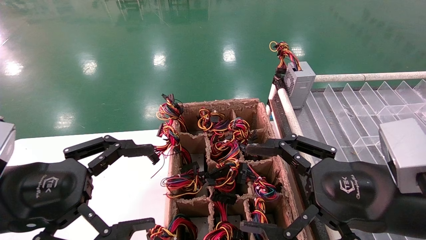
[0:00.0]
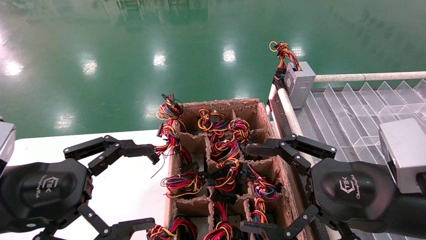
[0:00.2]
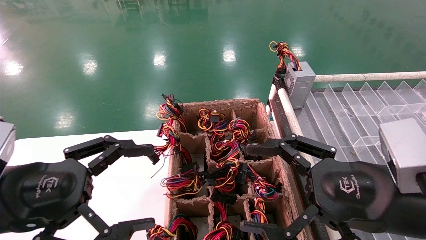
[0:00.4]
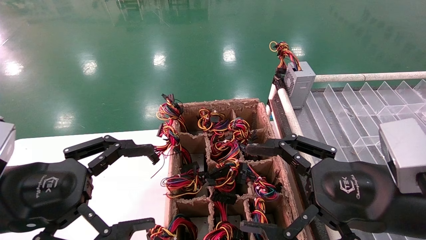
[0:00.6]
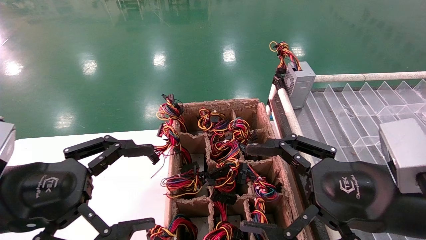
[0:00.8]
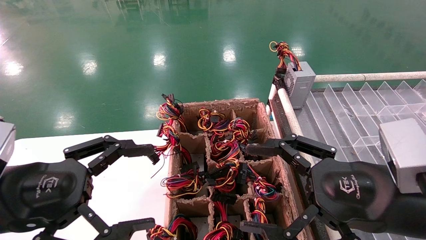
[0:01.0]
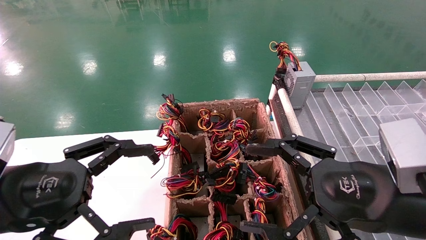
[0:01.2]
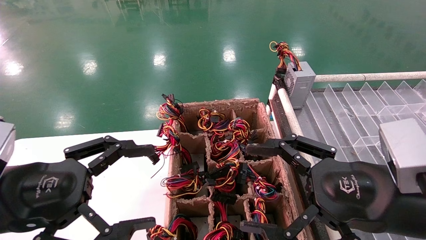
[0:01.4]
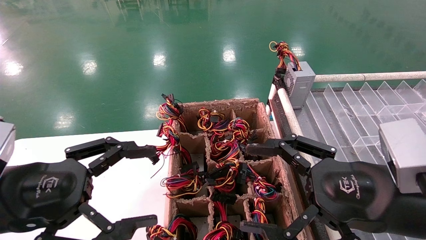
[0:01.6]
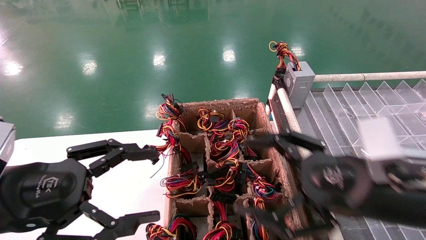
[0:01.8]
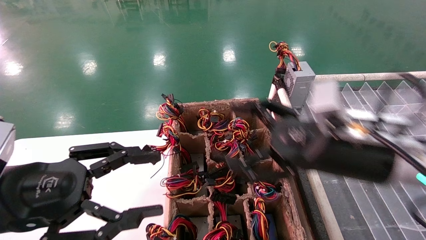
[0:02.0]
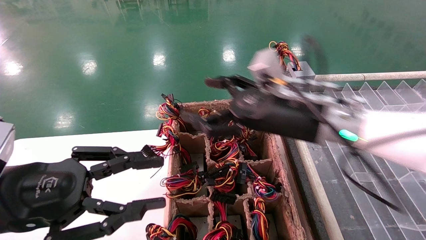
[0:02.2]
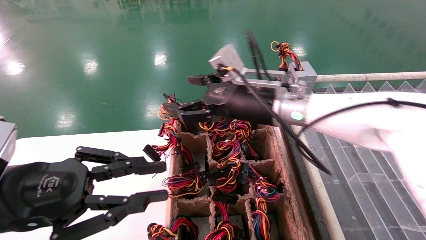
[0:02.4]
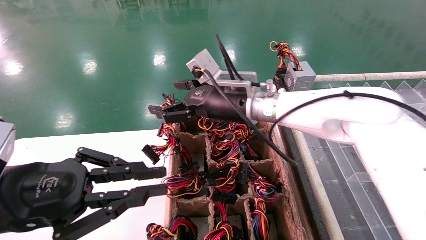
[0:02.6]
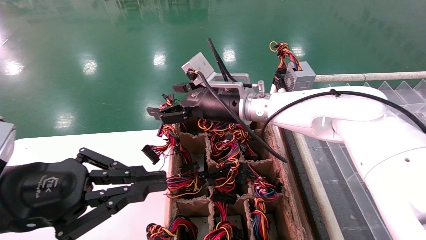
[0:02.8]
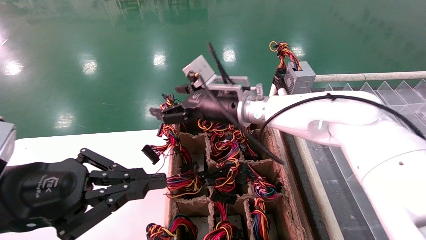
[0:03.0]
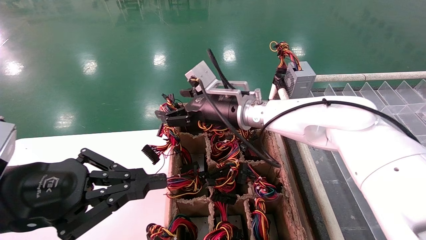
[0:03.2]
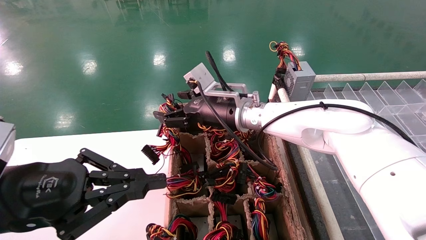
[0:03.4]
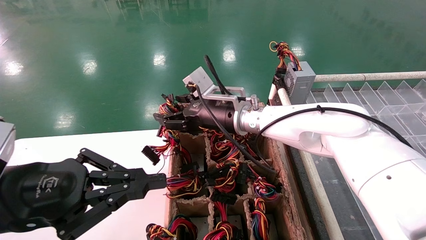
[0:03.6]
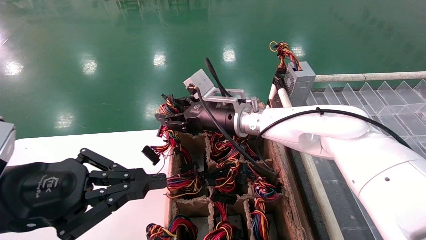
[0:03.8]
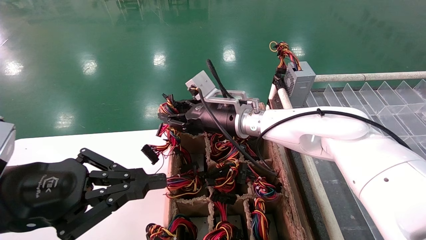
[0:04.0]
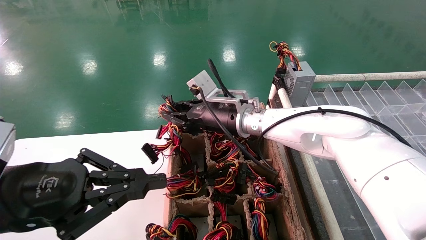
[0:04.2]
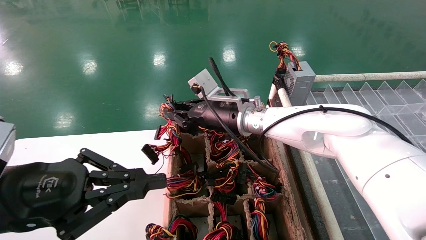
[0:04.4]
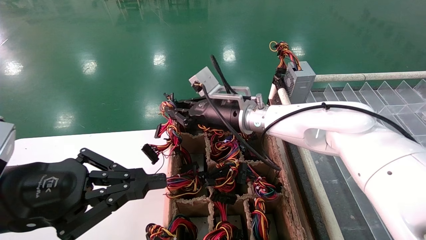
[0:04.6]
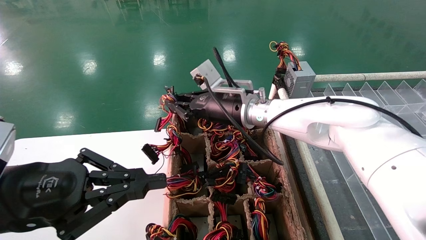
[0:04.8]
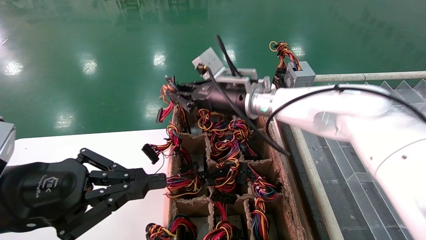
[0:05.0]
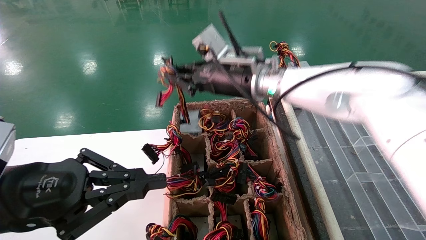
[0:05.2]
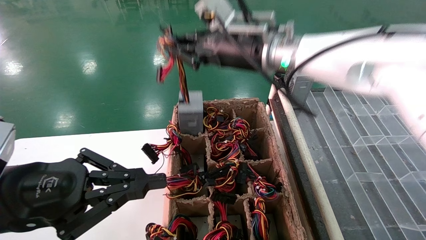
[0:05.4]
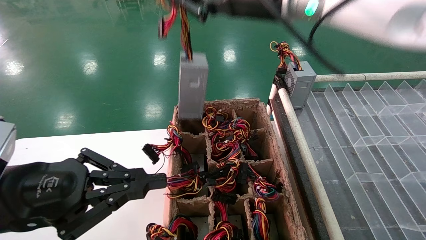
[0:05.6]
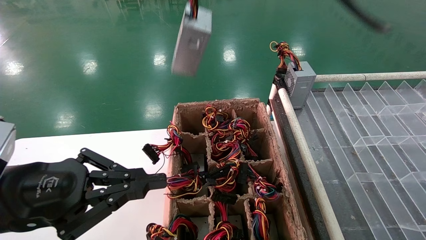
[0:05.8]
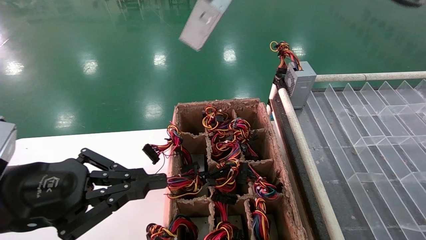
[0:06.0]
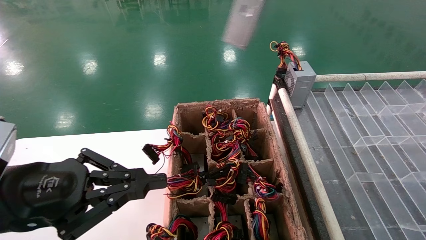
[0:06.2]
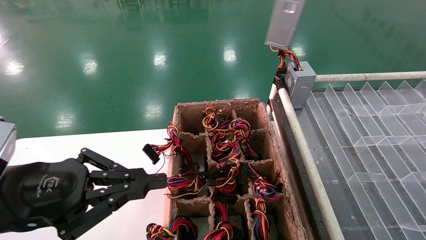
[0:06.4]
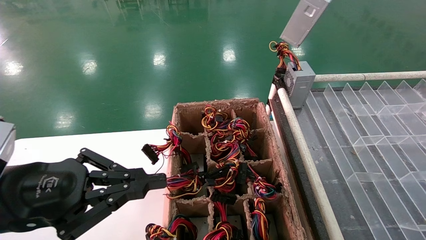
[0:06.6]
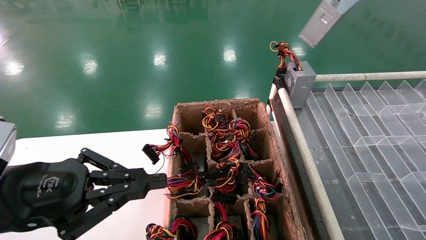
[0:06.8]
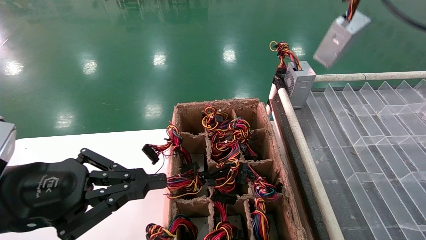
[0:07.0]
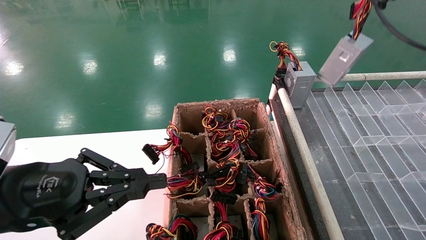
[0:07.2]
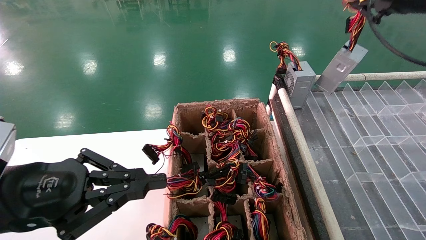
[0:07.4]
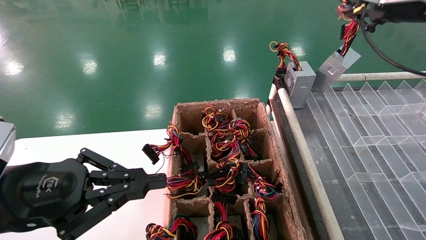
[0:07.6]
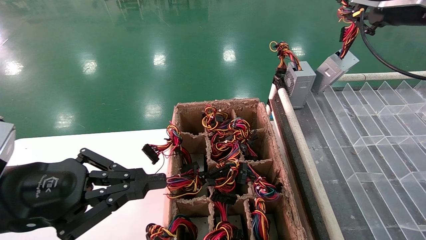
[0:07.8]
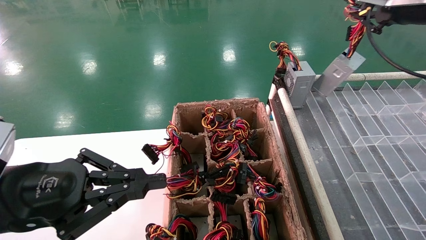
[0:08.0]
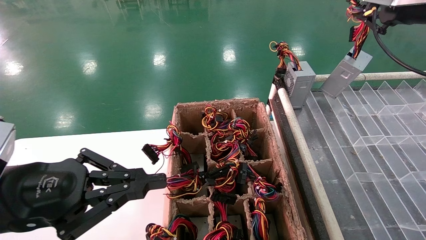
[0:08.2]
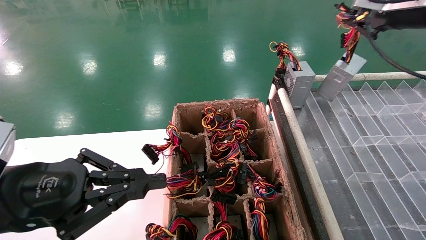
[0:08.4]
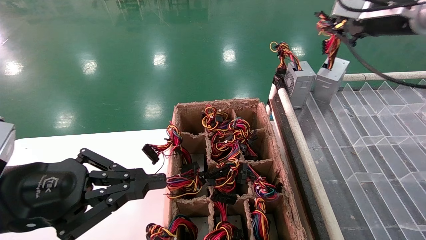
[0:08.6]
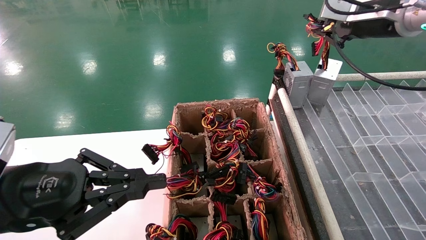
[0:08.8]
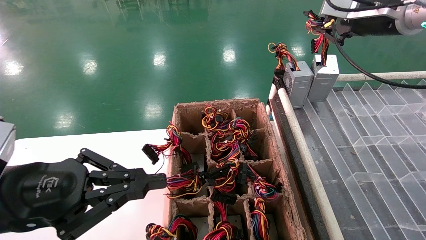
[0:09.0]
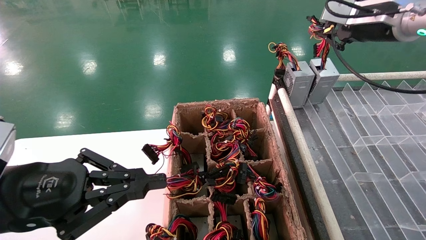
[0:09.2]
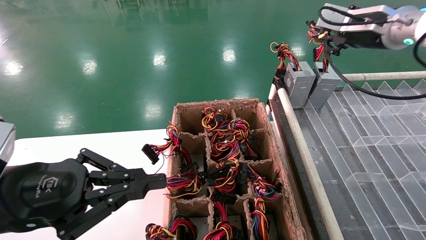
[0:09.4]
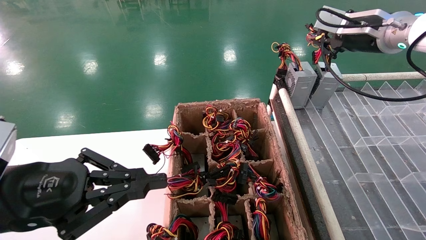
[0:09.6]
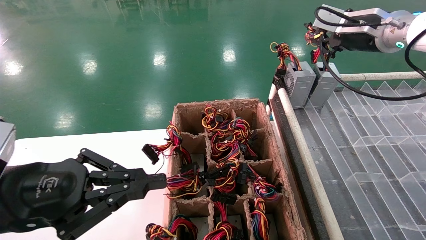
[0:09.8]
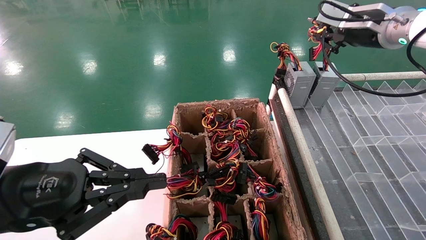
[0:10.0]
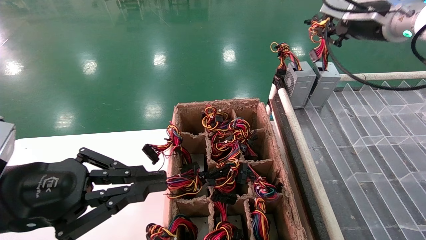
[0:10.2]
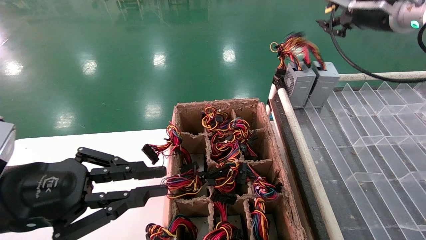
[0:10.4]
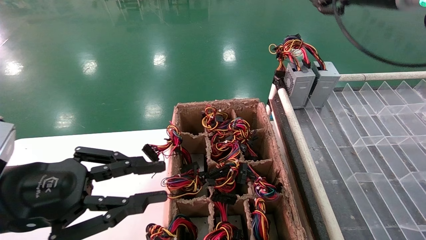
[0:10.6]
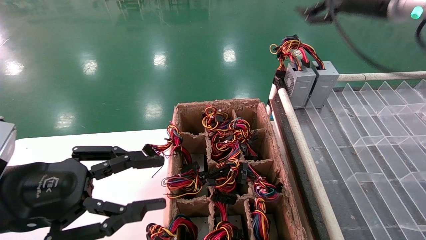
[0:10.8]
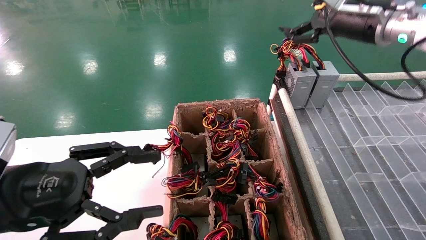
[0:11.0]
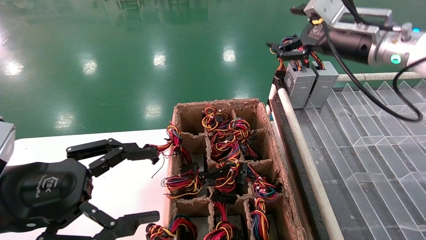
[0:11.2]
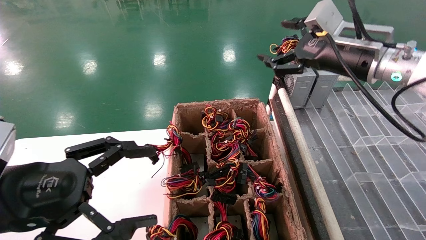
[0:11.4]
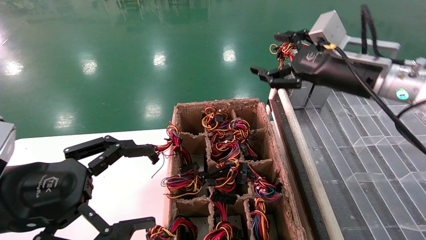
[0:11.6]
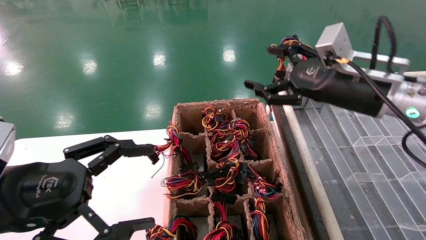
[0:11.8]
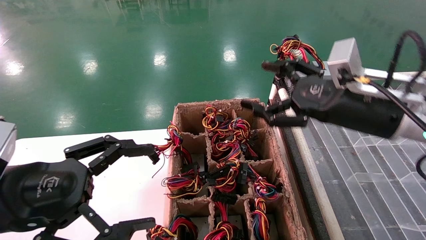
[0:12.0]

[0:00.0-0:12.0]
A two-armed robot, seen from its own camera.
Step, 0:02.2 to 0:04.6: Grab the main unit power supply from the containment box.
Step, 0:04.8 to 0:10.2: Place the main unit power supply in the designated area.
0:00.0 to 0:01.6: Neither gripper changes place.
0:01.6 to 0:03.0: The right gripper moves forward and to the left, about 30 cm. The left gripper closes.
0:03.0 to 0:04.4: The right gripper closes.
0:04.4 to 0:06.0: The right gripper heads upward, covering approximately 30 cm.
0:06.0 to 0:07.6: The right gripper moves to the right, some 20 cm.
0:07.6 to 0:09.0: The right gripper shifts by approximately 5 cm.
0:09.0 to 0:10.4: The grippers move only a little.
0:10.4 to 0:12.0: The left gripper opens up. The right gripper goes about 20 cm downward, backward and to the left, and opens.

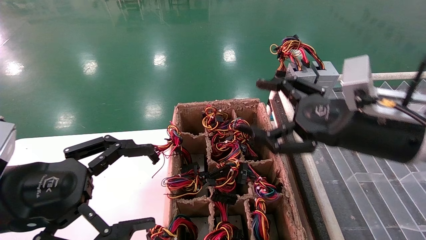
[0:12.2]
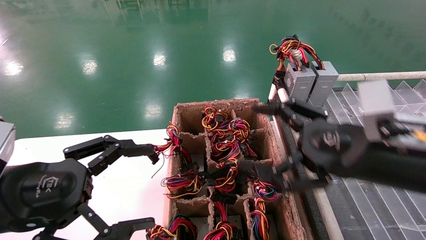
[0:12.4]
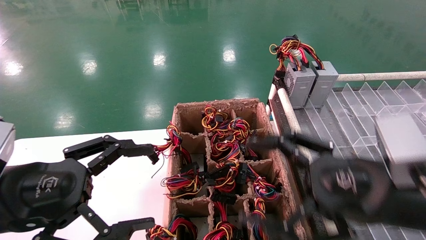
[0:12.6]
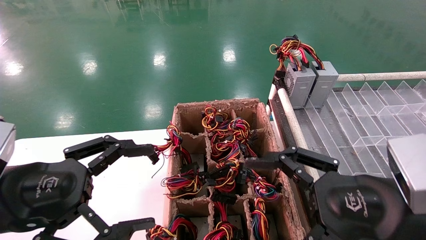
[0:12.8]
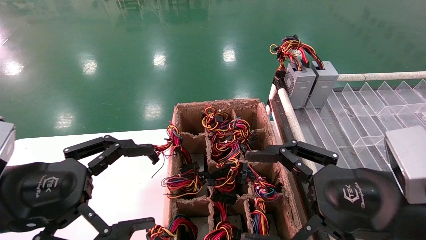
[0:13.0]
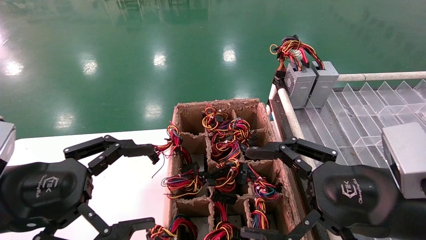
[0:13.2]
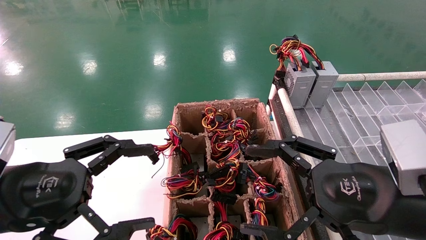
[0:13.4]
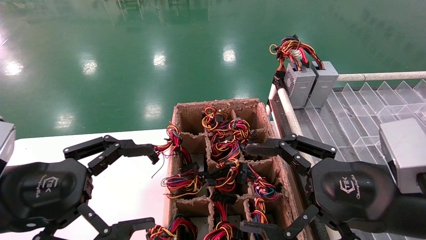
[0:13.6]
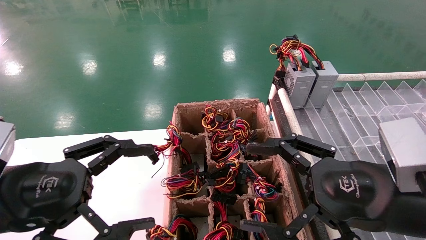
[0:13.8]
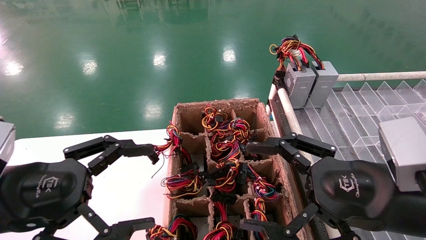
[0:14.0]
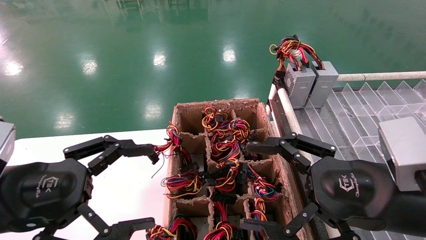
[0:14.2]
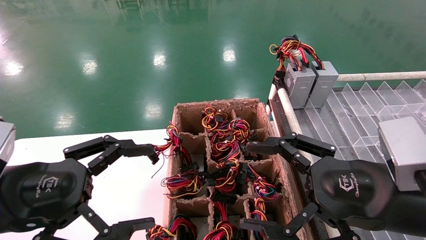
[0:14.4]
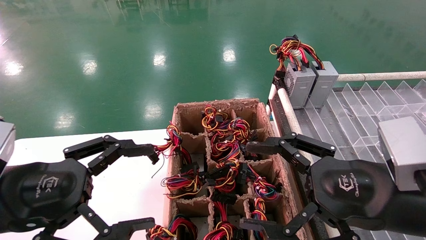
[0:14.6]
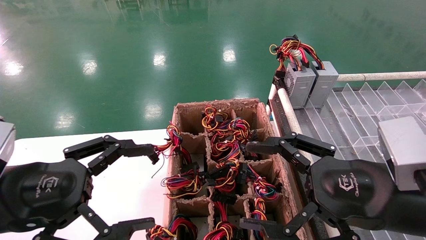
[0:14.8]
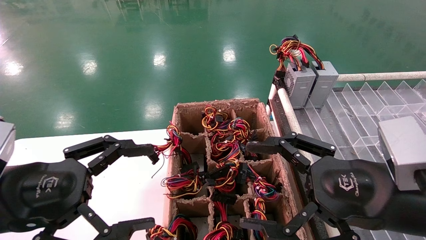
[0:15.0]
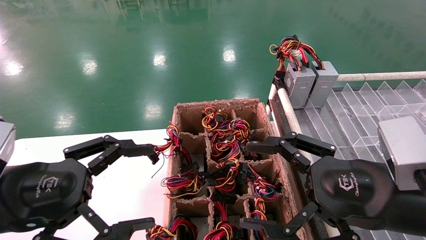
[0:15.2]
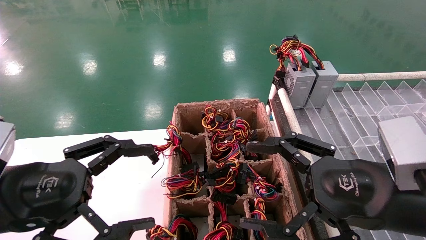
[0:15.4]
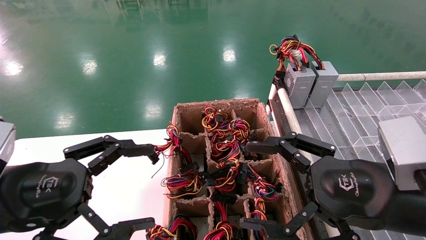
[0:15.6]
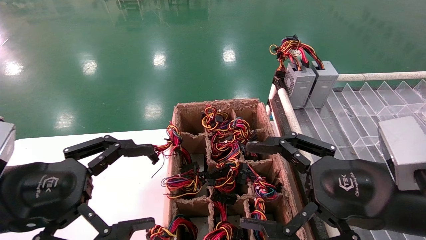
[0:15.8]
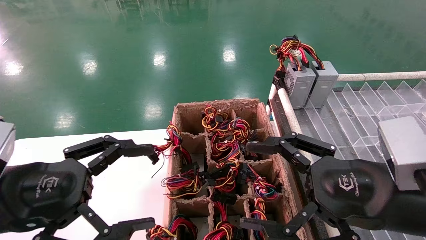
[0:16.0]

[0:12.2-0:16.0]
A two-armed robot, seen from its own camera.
0:12.2 to 0:13.4: The right gripper is displaced backward by roughly 10 cm.
0:13.4 to 0:16.0: Both grippers stay put.
